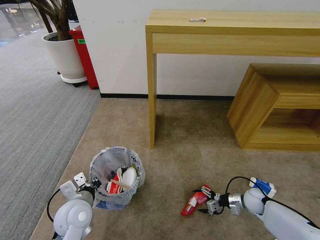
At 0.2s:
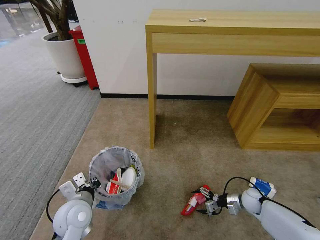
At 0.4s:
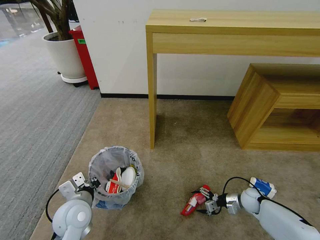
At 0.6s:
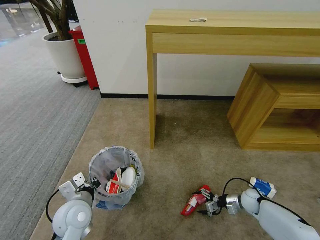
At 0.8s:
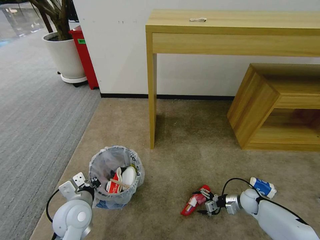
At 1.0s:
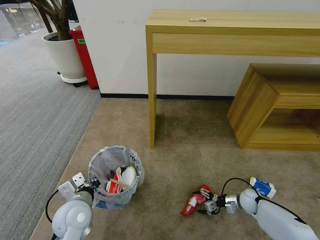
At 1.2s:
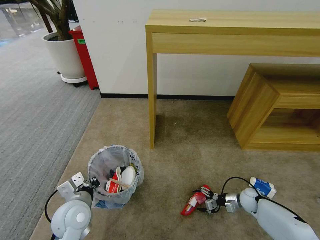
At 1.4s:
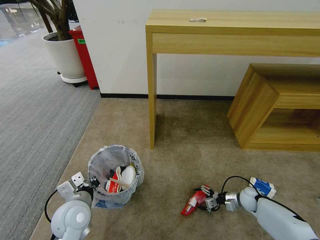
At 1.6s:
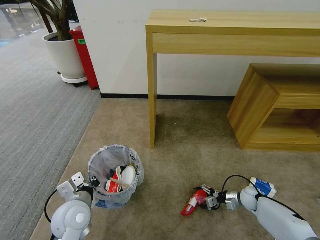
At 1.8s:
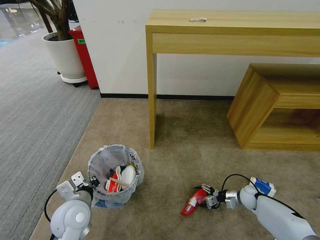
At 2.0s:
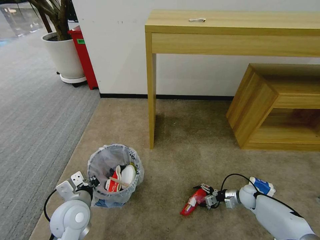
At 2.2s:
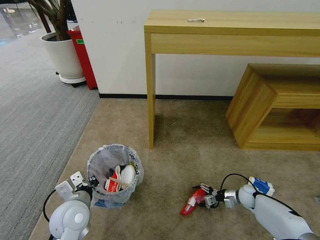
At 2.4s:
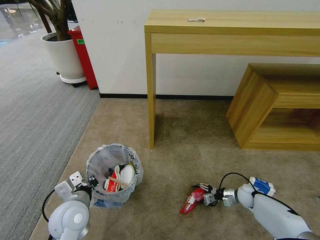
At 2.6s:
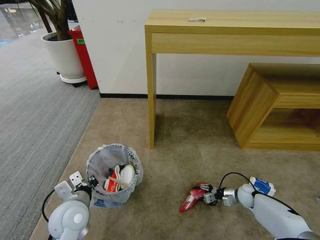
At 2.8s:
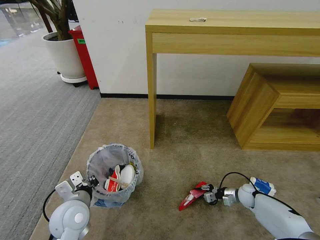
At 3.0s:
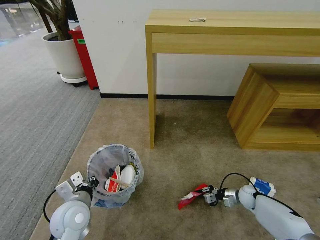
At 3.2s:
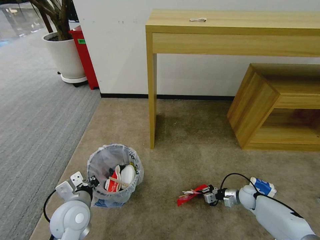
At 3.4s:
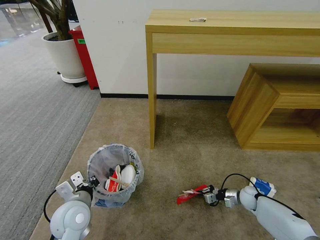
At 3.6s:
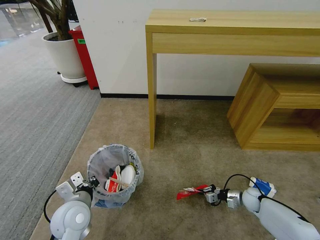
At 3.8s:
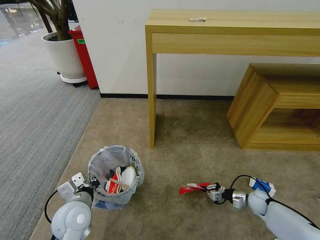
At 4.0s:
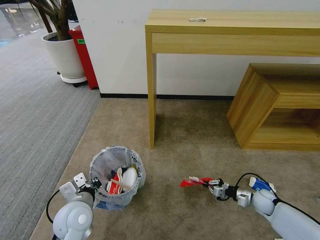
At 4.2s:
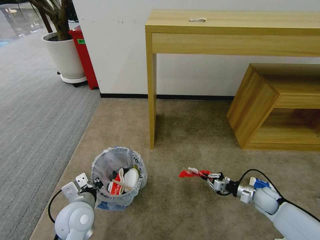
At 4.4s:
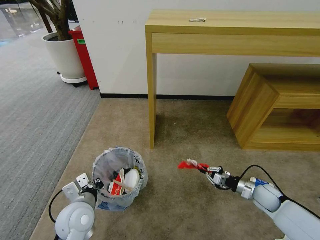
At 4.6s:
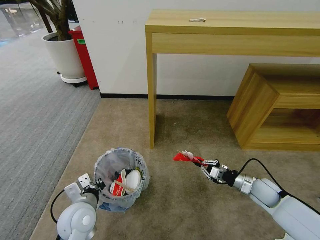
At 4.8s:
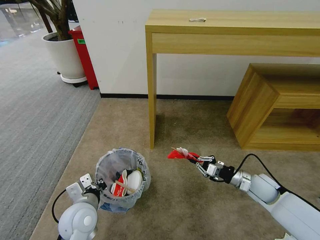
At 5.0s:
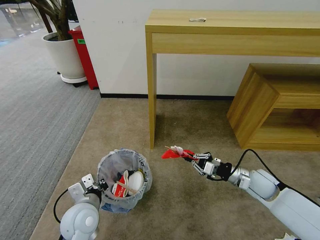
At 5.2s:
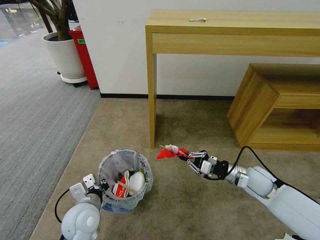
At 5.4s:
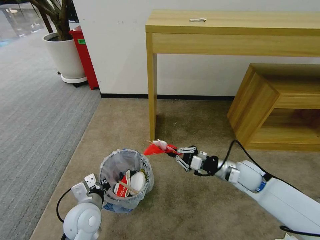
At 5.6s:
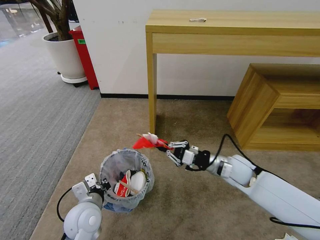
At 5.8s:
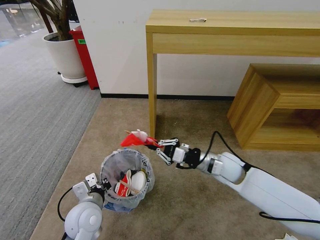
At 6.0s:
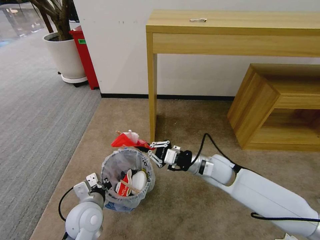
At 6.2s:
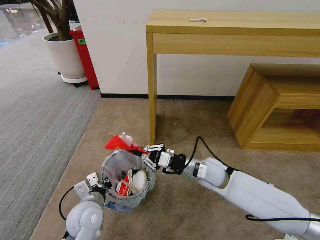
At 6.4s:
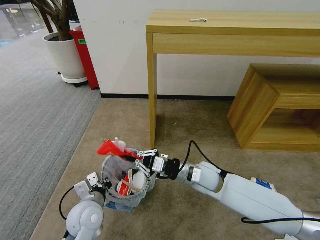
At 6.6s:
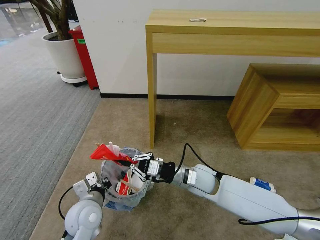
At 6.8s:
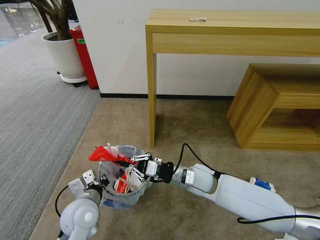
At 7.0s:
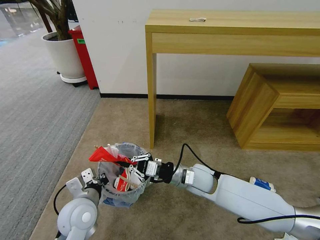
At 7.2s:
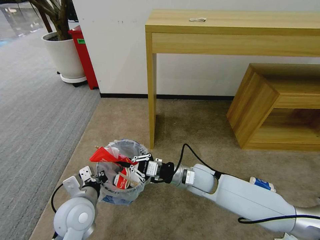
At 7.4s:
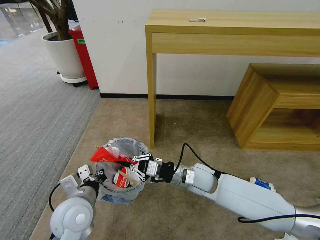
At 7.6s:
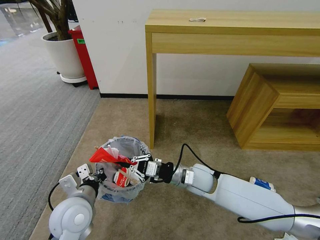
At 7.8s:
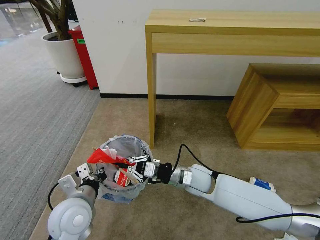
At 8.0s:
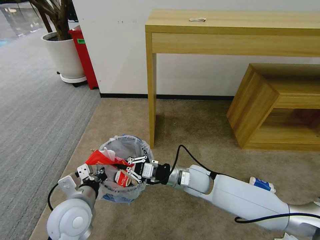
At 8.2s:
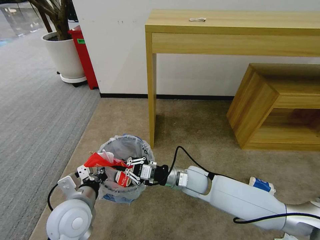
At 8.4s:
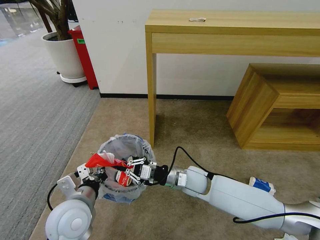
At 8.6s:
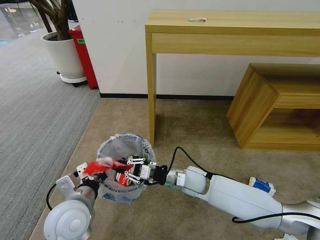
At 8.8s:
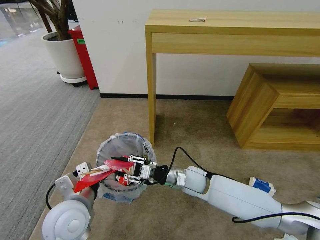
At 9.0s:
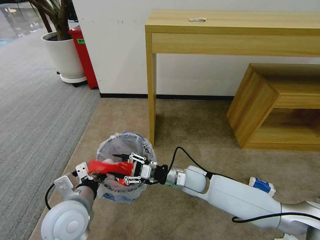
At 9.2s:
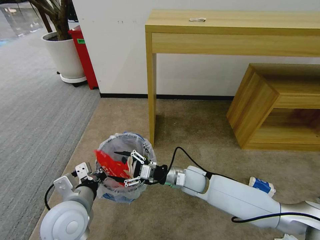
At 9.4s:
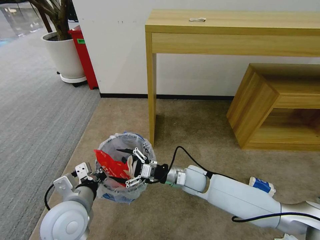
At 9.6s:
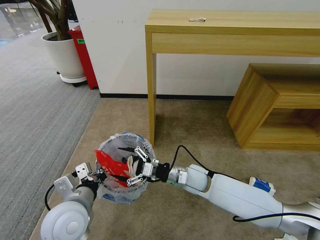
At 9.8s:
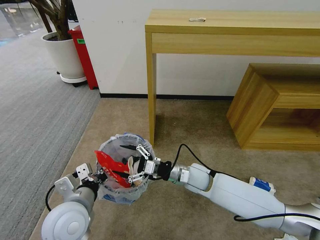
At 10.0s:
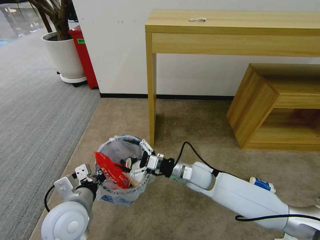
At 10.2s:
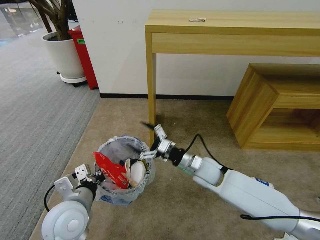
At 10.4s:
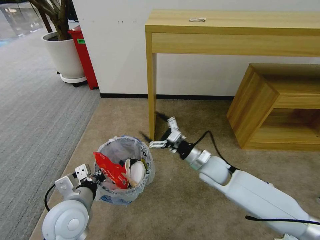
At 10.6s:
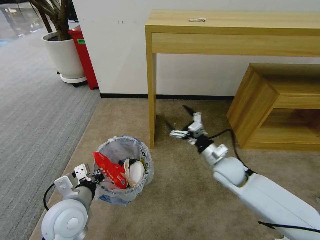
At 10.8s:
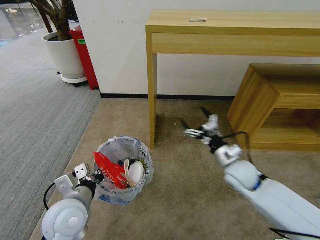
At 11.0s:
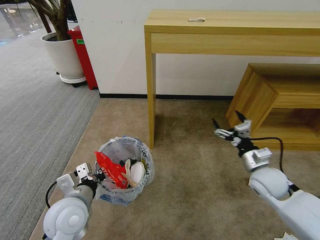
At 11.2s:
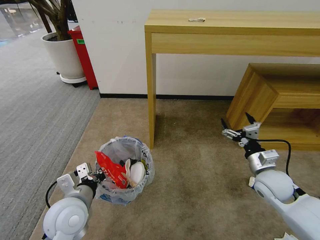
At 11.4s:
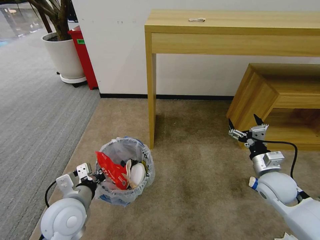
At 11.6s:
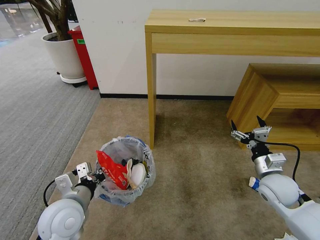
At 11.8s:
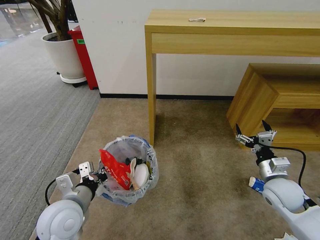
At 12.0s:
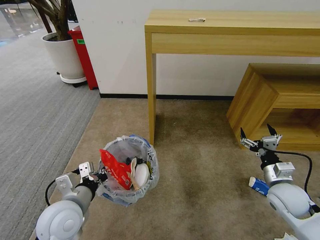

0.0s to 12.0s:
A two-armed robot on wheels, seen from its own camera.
Task of the whole recording: Pick up the trash bin and place the garbage on the floor into it.
0.0s to 1.6s: There are only small adjustments of the grippers.
1.6s to 3.0s: The right gripper closes.
3.0s to 4.4s: The right gripper shifts some 10 cm upward.
4.4s to 6.0s: The right gripper heads to the left and upward, covering roughly 30 cm.
6.0s to 7.6s: The right gripper is displaced to the left by some 5 cm. The left gripper goes about 5 cm upward.
7.6s to 9.0s: The right gripper opens.
9.0s to 10.4s: The right gripper is displaced to the right by some 5 cm, and opens up.
10.4s to 12.0s: The right gripper heads to the right and backward, covering roughly 20 cm.

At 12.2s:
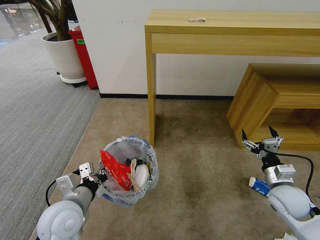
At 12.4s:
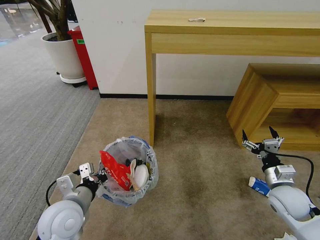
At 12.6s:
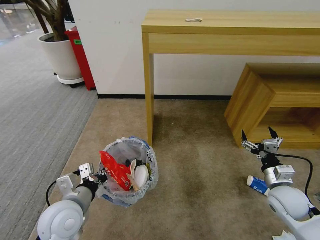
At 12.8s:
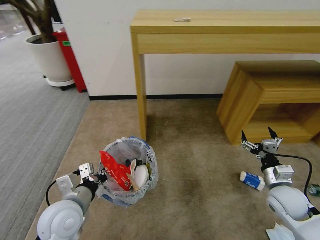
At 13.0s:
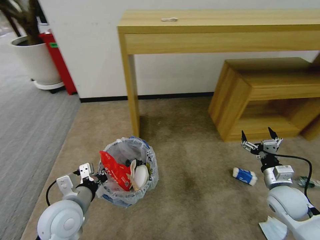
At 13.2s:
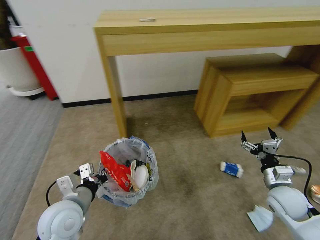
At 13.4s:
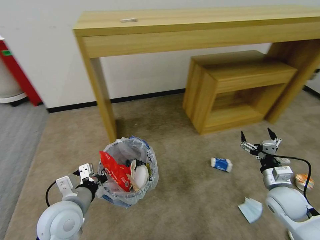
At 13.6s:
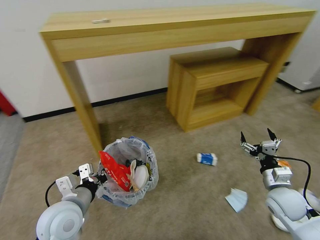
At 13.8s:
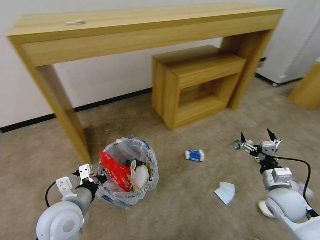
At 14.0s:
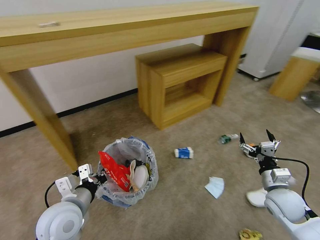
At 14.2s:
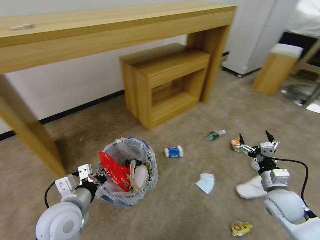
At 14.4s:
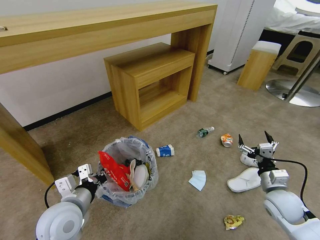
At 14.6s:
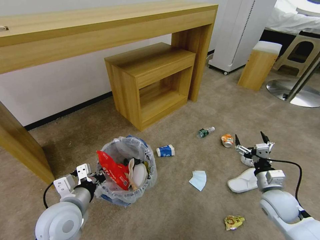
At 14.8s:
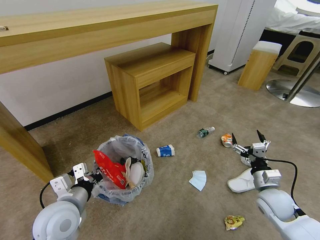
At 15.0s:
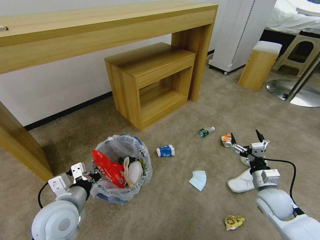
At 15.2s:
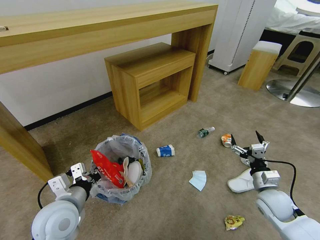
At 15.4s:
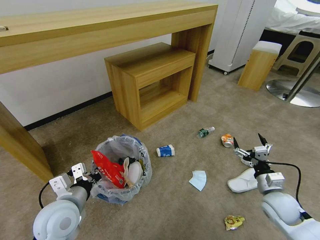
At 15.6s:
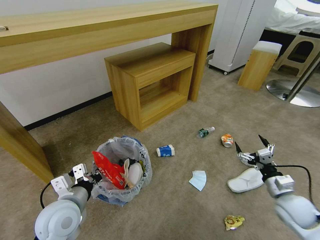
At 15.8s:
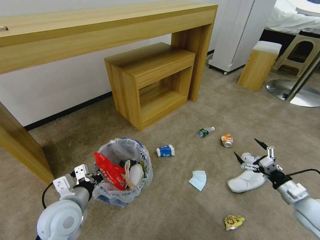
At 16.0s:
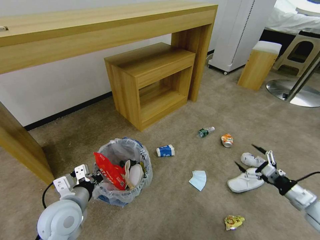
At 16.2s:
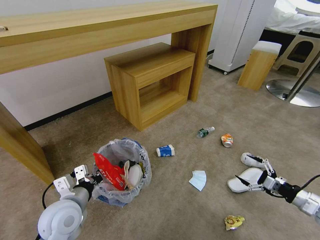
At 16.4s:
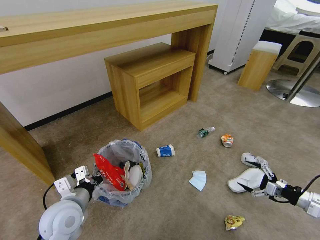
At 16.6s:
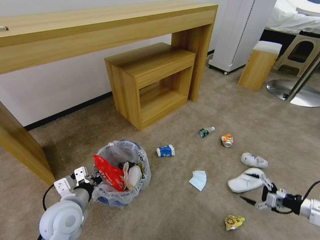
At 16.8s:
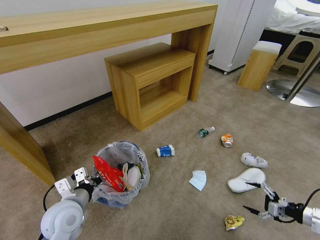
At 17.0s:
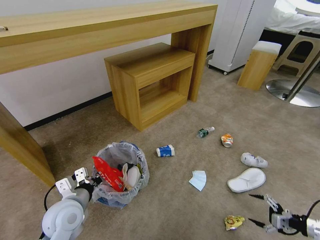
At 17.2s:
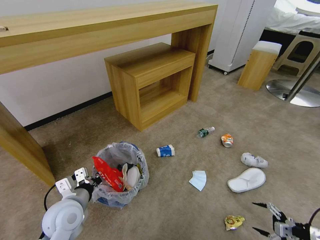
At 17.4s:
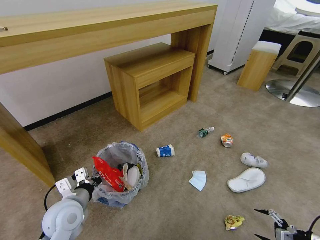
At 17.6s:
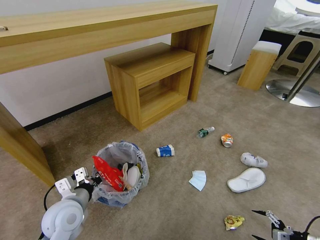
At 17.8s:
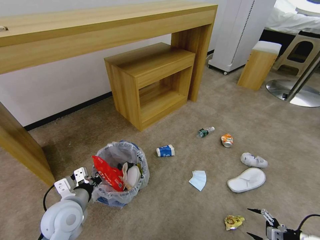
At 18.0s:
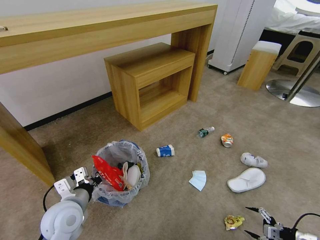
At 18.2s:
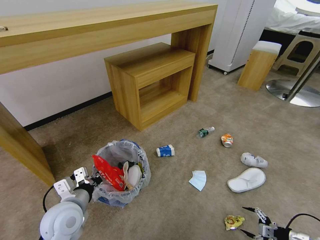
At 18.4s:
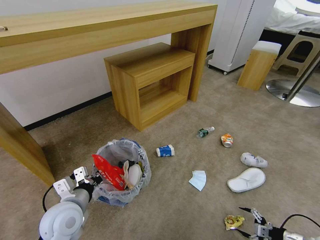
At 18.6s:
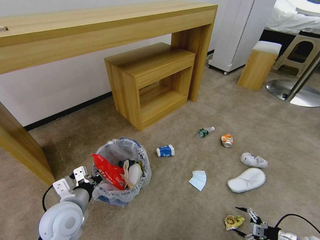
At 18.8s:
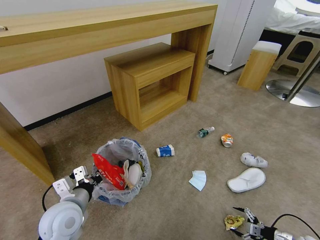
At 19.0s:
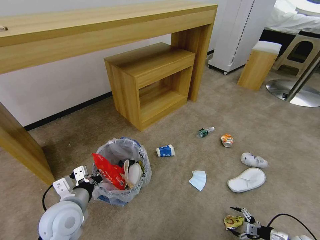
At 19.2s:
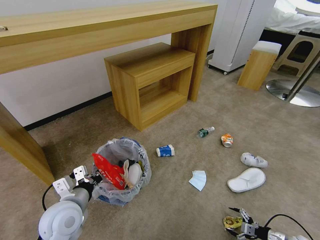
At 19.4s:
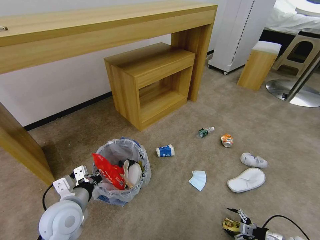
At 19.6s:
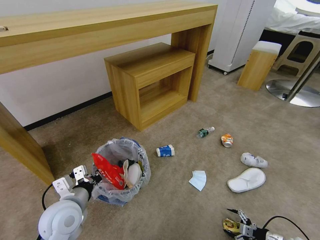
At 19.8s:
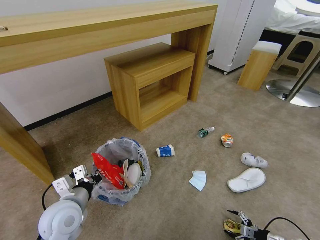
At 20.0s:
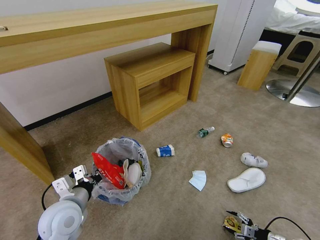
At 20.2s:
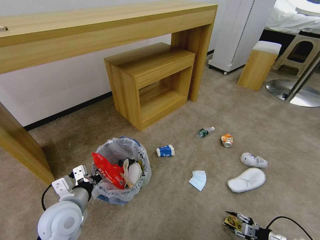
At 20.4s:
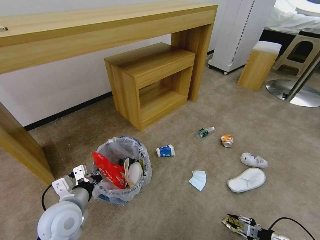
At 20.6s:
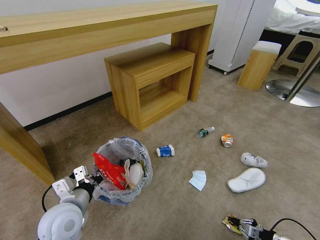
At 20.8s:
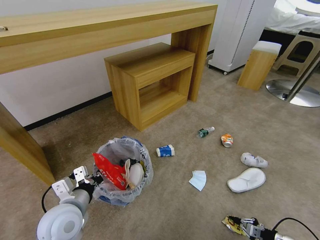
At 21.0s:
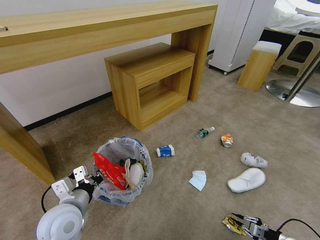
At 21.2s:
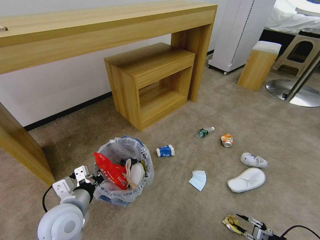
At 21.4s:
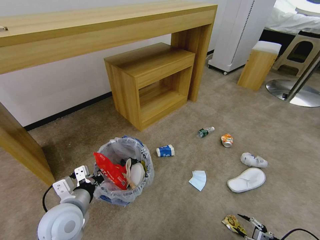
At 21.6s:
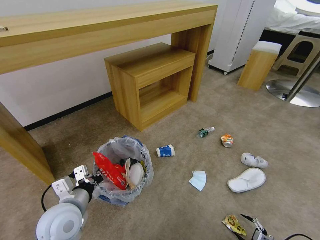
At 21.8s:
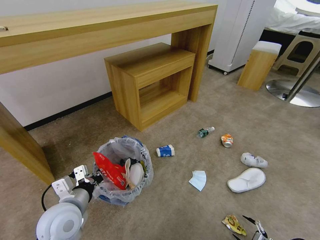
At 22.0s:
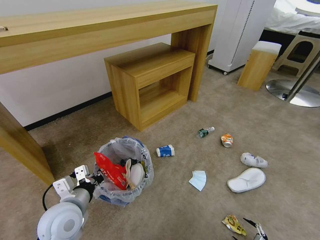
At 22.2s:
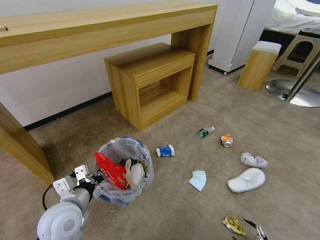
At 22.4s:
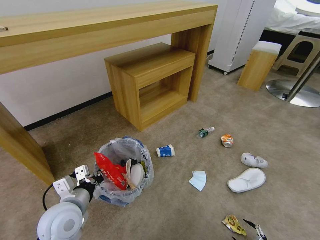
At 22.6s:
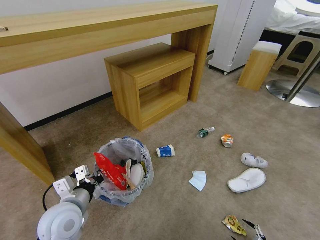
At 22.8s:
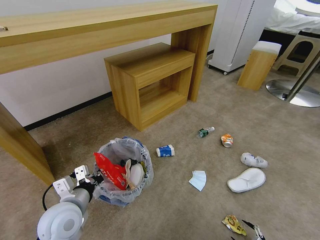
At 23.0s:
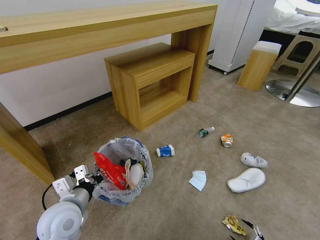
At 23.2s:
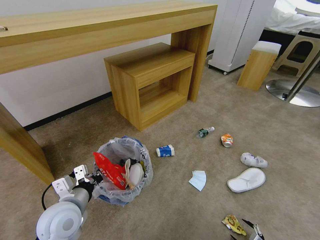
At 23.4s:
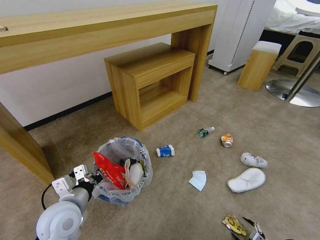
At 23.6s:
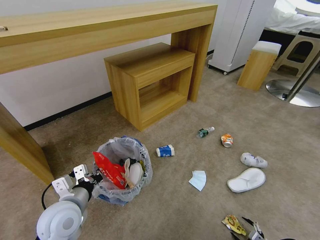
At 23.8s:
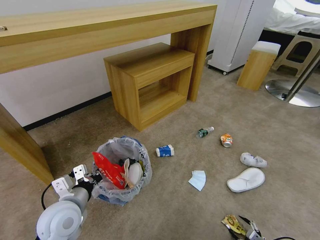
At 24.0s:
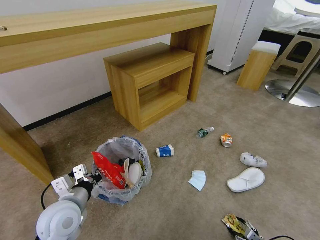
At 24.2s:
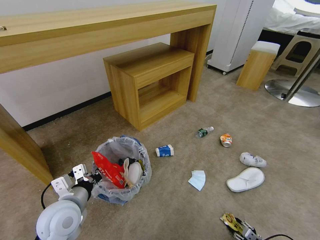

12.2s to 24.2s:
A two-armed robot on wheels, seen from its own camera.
Task of the whole recording: Pick up the trash bin and place the garbage on the floor into it.
15.2s to 16.6s: The right gripper moves to the right, roughly 20 cm.
16.6s to 18.2s: The right gripper heads downward and backward, covering some 15 cm.
18.2s to 19.8s: The right gripper shifts some 5 cm downward.
19.8s to 21.2s: The right gripper ends up roughly 5 cm from where it was, and closes up.
21.2s to 22.6s: The right gripper travels backward by roughly 5 cm, and opens.
22.6s to 24.2s: The right gripper closes.
